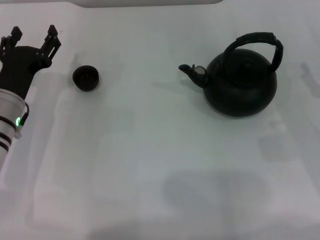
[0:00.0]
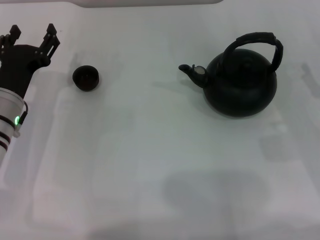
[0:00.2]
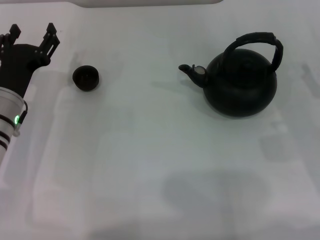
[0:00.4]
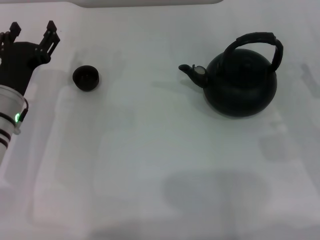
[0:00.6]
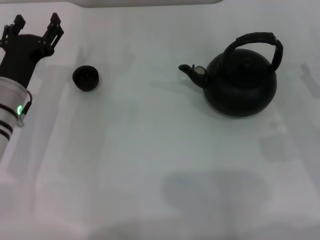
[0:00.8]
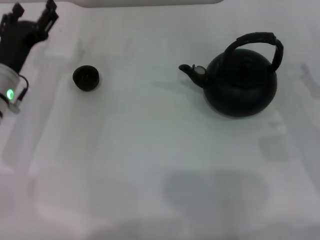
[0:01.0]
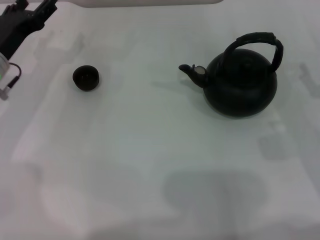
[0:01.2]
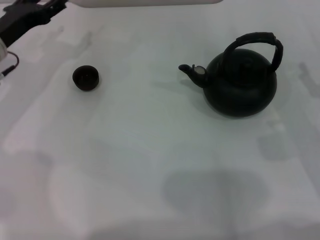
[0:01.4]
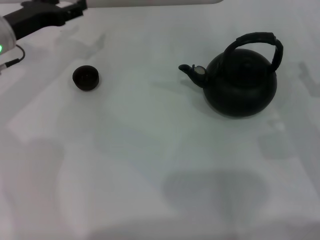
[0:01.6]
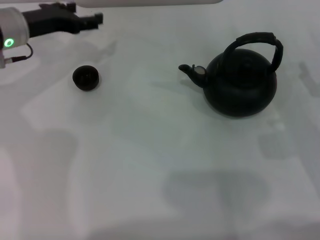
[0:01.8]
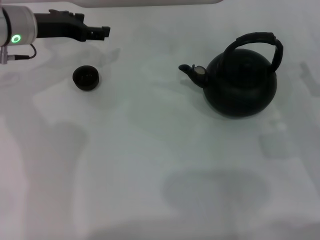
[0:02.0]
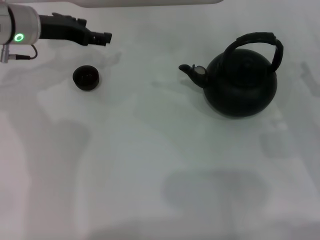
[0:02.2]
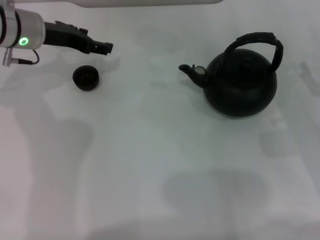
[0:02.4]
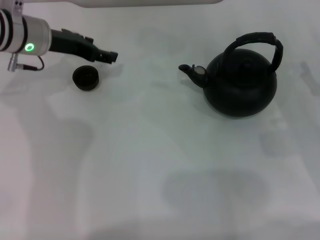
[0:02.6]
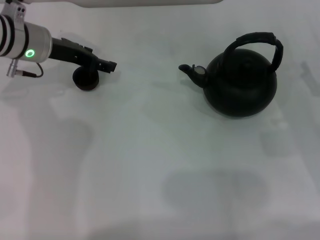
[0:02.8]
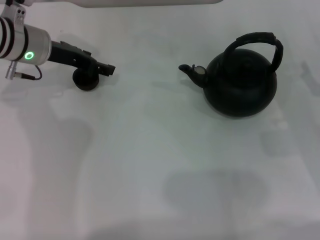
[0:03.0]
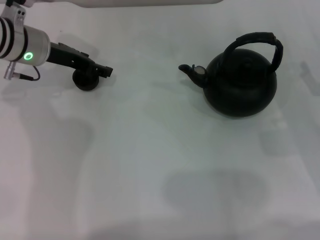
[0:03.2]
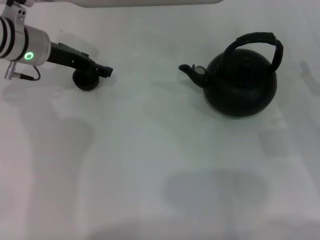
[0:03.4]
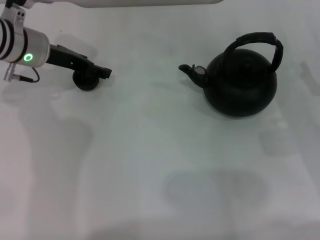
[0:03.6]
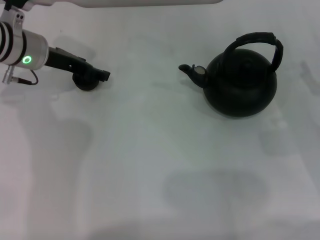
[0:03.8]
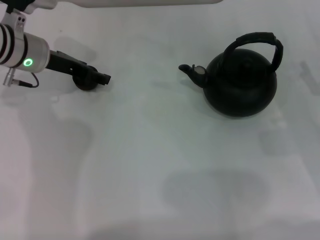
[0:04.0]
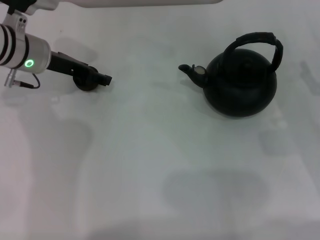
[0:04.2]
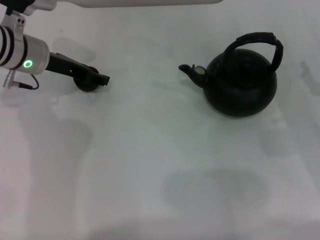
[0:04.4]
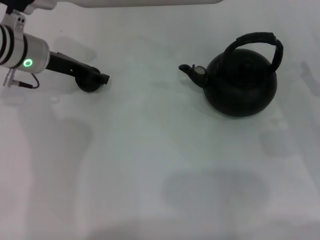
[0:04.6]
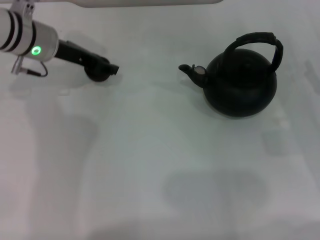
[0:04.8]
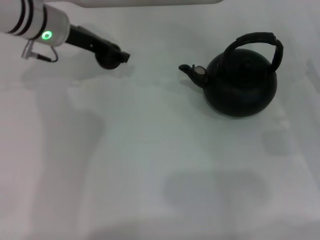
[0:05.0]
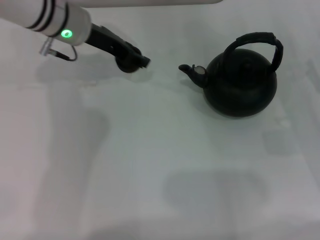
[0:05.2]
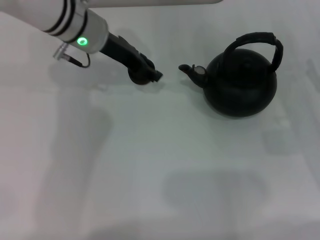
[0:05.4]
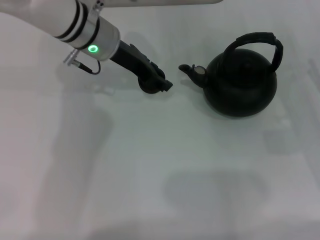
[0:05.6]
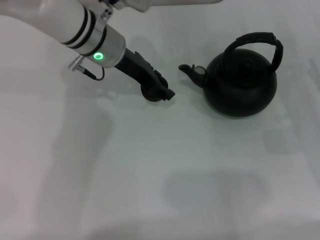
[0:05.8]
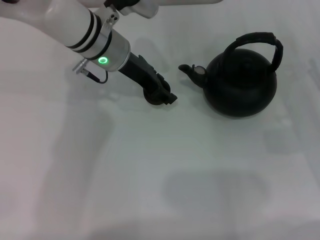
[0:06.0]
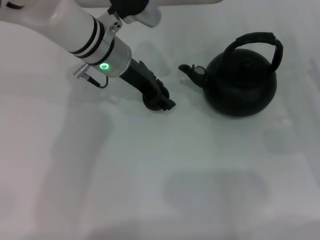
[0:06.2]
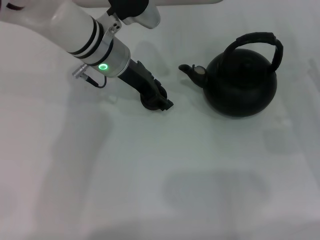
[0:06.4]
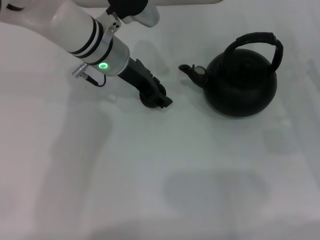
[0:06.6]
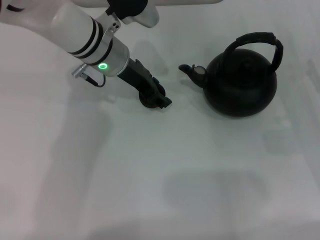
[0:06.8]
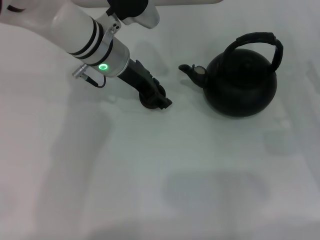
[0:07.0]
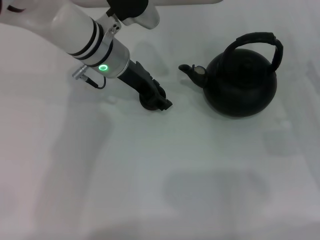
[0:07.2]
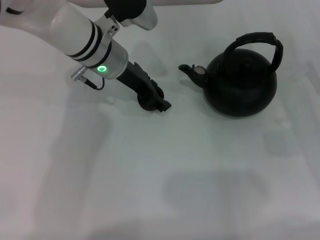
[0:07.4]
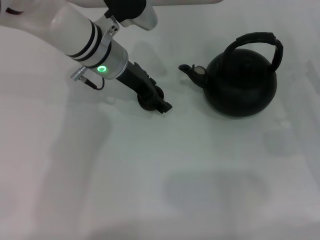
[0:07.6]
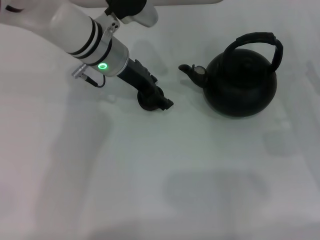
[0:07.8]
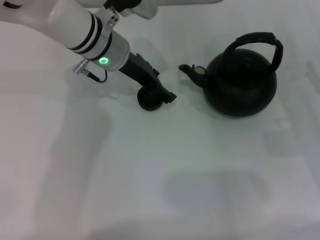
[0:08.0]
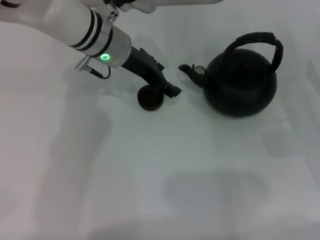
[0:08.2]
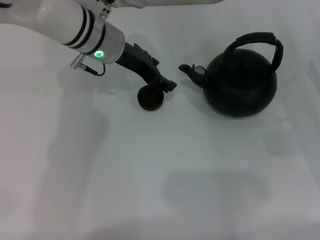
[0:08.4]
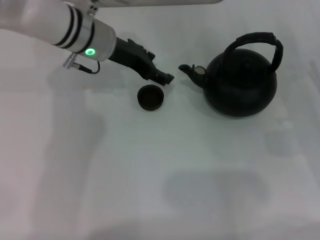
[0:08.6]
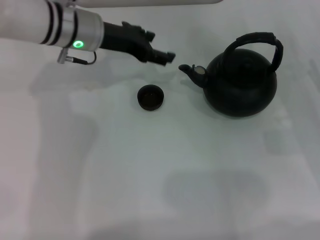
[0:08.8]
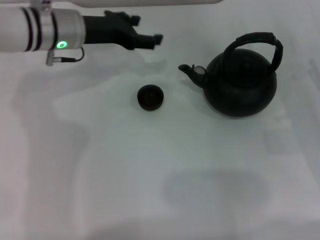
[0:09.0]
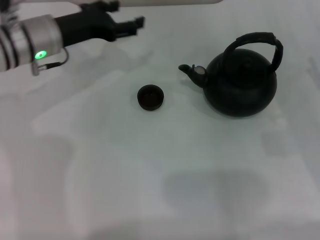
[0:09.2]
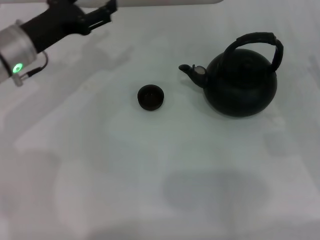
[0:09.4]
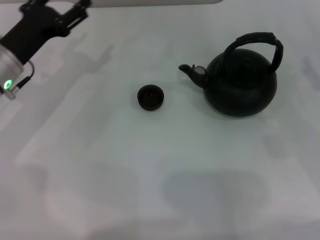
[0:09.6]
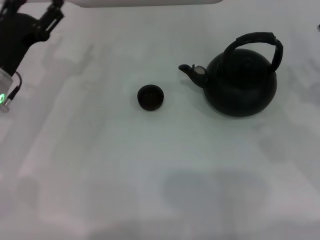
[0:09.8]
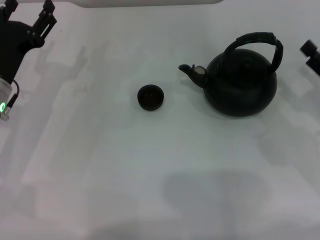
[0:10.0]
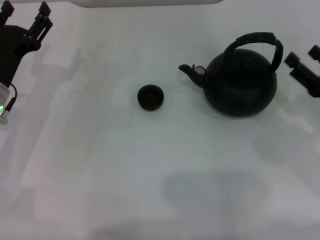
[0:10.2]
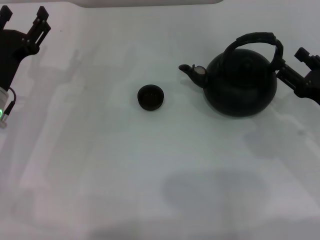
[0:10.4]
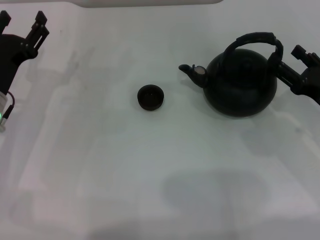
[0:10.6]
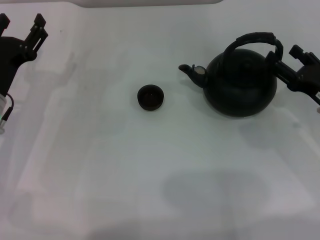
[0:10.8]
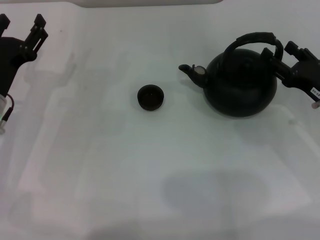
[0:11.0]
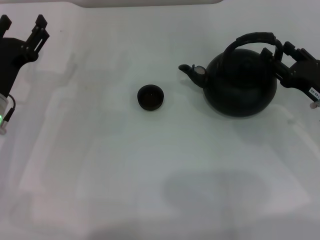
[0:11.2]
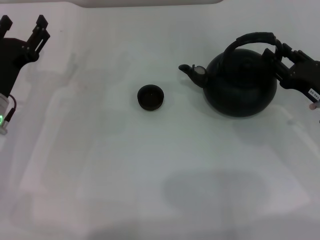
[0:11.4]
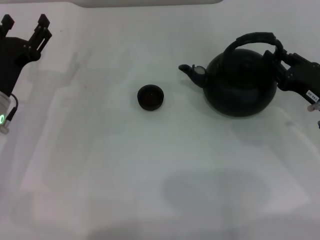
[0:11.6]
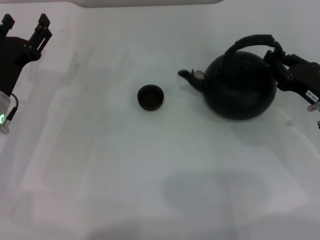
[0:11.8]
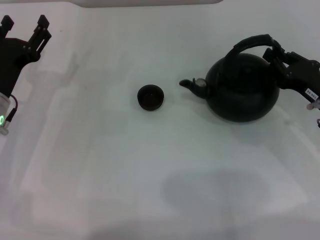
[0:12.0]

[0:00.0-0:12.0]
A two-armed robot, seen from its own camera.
Task of the whole recording: Grasp the handle of the teapot with one hand and pour tea into the teacup.
Step, 0:00.0 to 0:04.8: Pick up the teacup with the left gripper.
Step, 0:05.0 to 0:08.6: Place the teacup in the center of view with the left gripper.
0:00.0 to 0:01.6: The left gripper is displaced forward and upward by roughly 15 cm.
0:01.6 to 0:03.0: The left gripper shifts by about 5 cm.
0:03.0 to 0:04.4: The two grippers keep their place.
0:04.4 to 0:06.0: The left gripper goes roughly 10 cm to the right, and closes up.
0:06.0 to 0:07.6: Both grippers stay put.
0:07.6 to 0:09.0: The left gripper travels to the left by approximately 5 cm, and opens up.
0:09.0 to 0:10.4: The left gripper shifts approximately 15 cm backward, to the left and downward.
0:10.4 to 0:12.0: The right gripper closes.

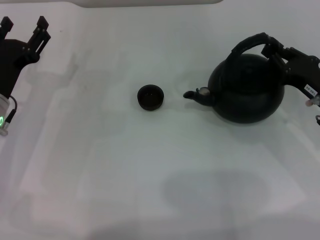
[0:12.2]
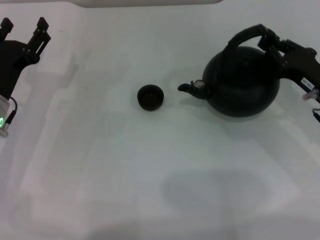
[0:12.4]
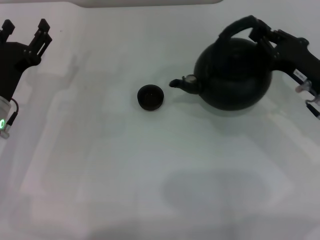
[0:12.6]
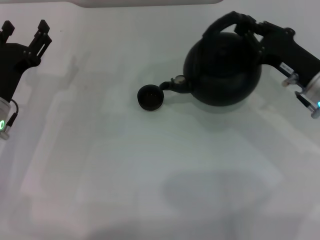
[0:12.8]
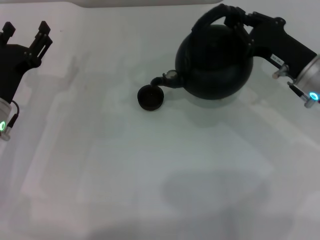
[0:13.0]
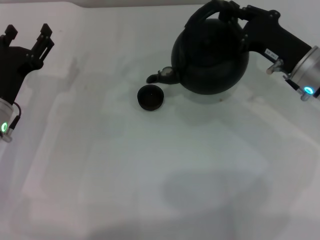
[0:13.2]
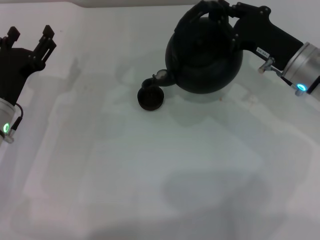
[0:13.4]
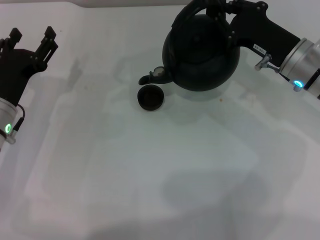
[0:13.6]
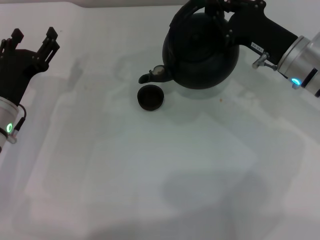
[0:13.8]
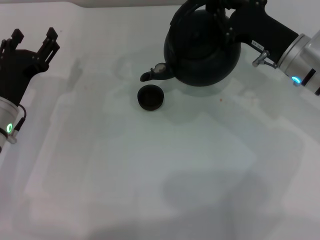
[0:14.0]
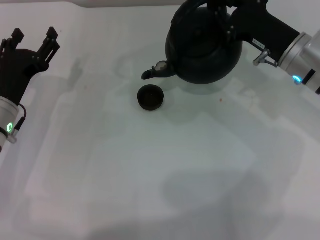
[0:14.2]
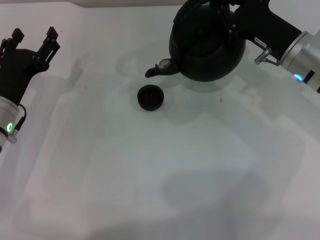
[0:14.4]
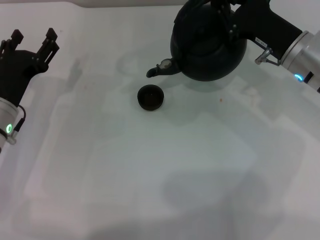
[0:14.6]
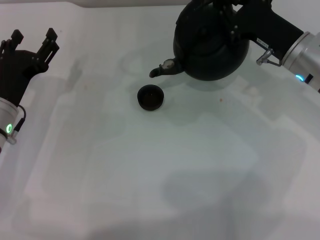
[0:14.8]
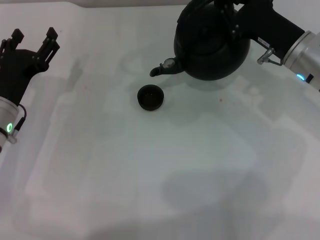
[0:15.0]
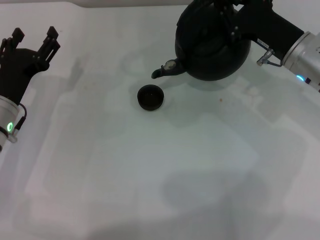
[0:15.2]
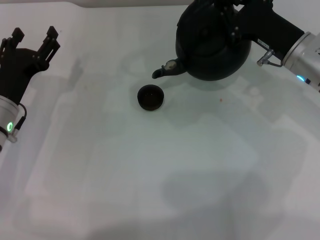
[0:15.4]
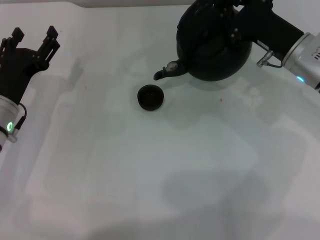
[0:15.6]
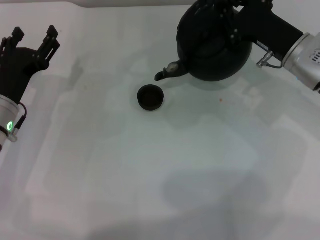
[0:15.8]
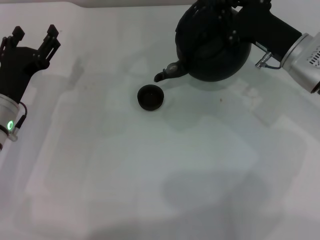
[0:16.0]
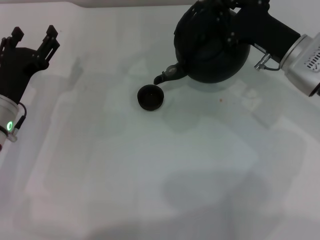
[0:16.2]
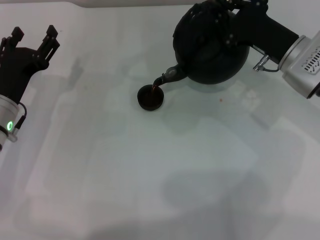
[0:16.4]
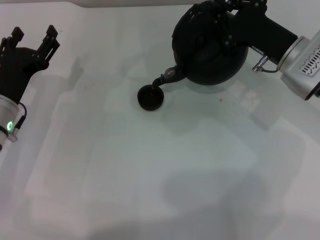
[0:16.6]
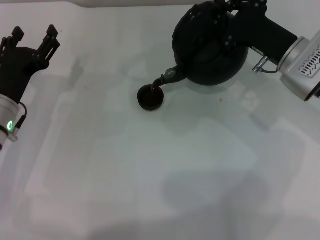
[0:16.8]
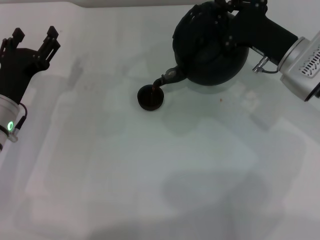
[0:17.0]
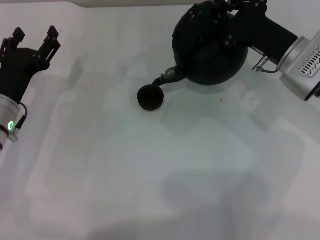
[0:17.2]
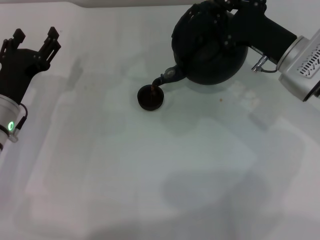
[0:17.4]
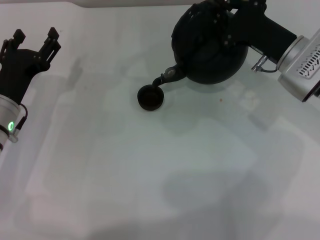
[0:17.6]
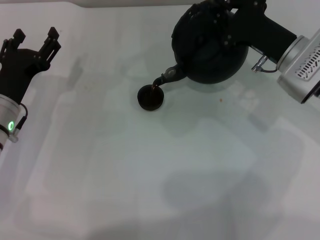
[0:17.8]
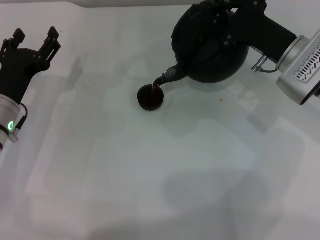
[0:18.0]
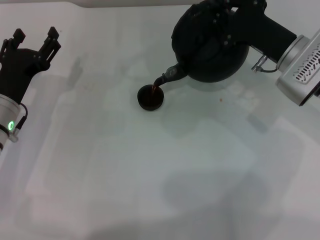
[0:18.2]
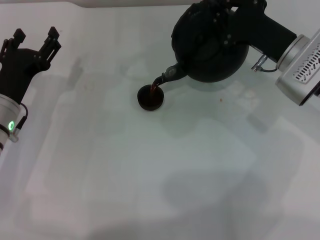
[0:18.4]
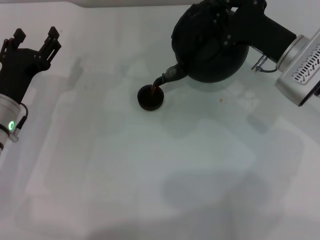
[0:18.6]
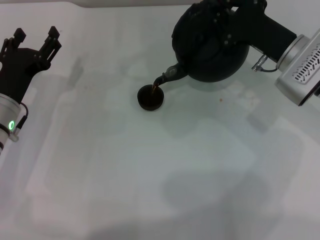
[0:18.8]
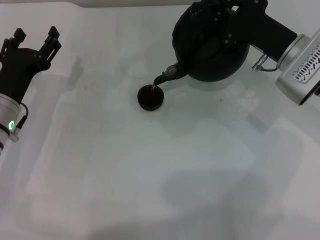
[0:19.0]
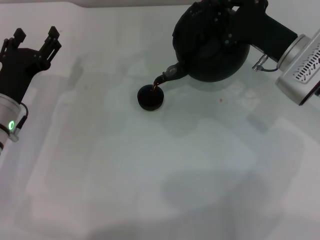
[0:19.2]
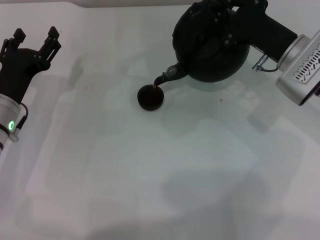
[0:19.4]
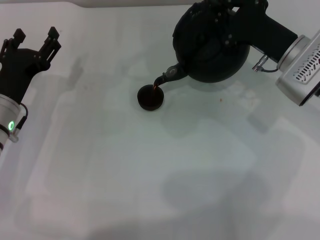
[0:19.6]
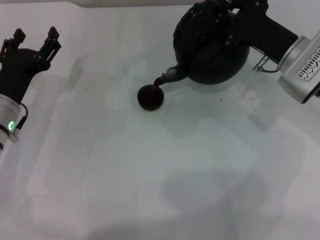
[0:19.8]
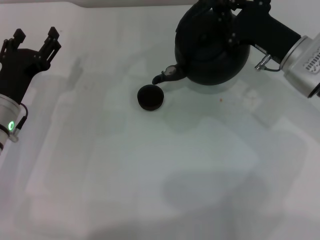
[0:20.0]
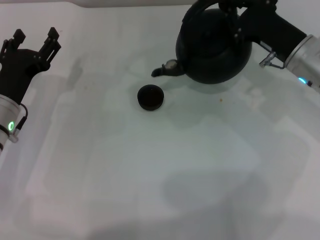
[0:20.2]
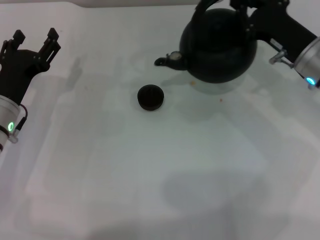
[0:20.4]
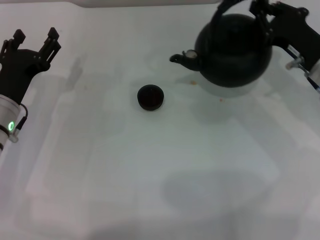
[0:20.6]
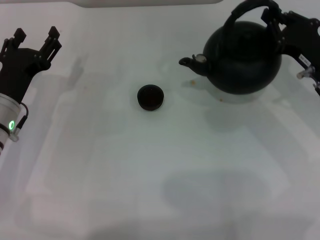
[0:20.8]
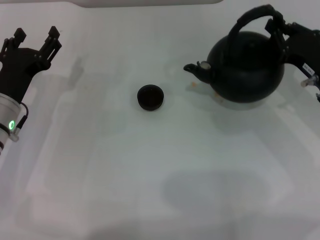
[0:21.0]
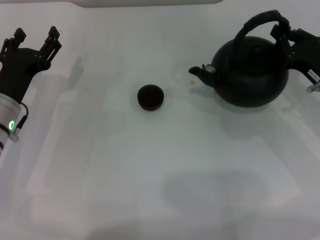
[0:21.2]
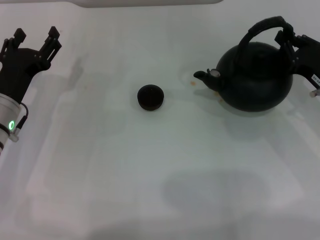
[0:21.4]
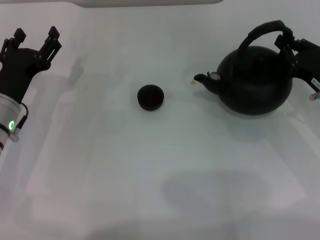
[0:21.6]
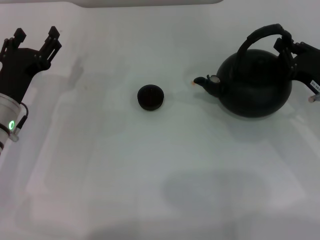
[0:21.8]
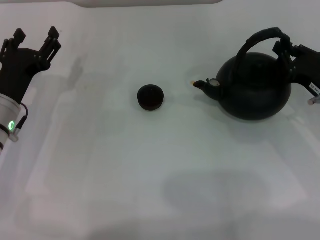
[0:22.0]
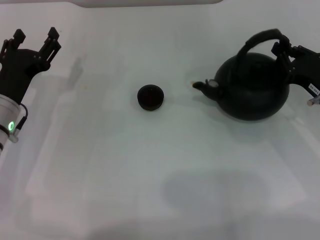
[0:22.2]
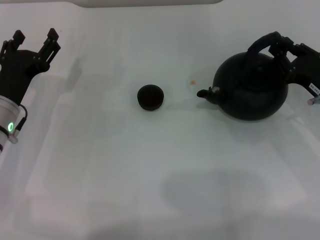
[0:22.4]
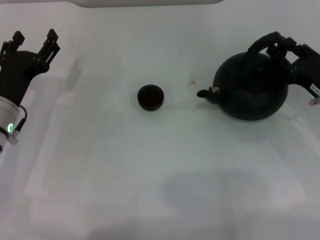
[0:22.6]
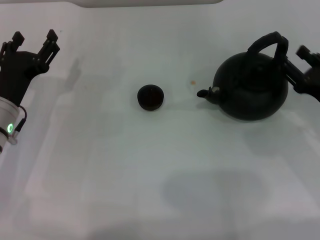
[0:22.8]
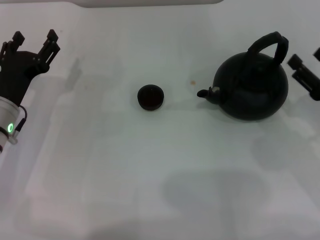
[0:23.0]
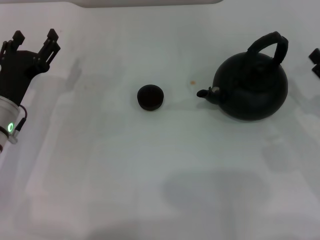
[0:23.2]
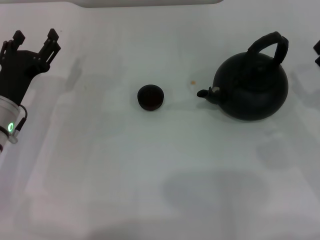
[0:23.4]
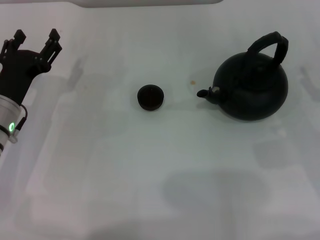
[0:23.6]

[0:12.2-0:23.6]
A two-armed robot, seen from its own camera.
Task of the whole recording: Grasp the handle of the teapot with one hand and pour tea into the teacup.
Step, 0:12.8 to 0:20.0: Pour tea into the teacup with the right gripper.
Step, 0:20.2 to 0:22.6: Put down the teapot with the right gripper.
0:12.2 to 0:13.6: The right gripper travels to the left and forward by approximately 10 cm.
0:13.6 to 0:15.0: The grippers make only small movements.
0:15.0 to 0:16.4: The grippers move only a little.
0:16.4 to 0:17.8: Neither gripper changes place.
0:17.8 to 0:19.4: Neither gripper changes place.
0:19.4 to 0:20.8: The right gripper heads to the right, covering approximately 5 cm.
0:20.8 to 0:22.2: There are only small adjustments of the grippers.
0:22.2 to 0:23.6: The right gripper changes place by about 5 cm, and opens its fingers.
